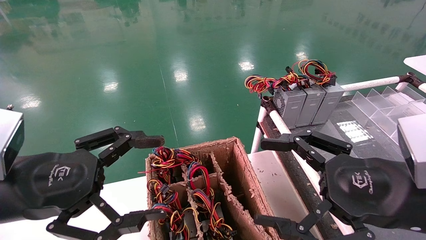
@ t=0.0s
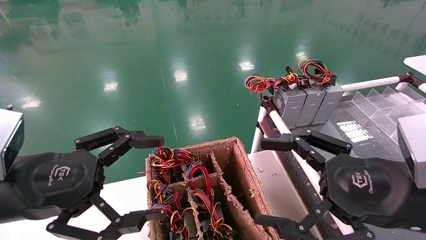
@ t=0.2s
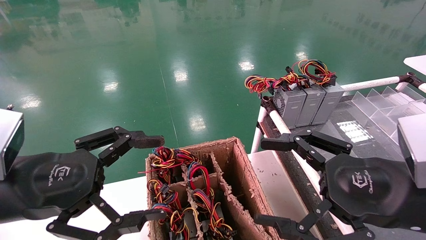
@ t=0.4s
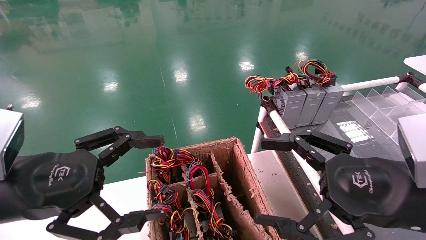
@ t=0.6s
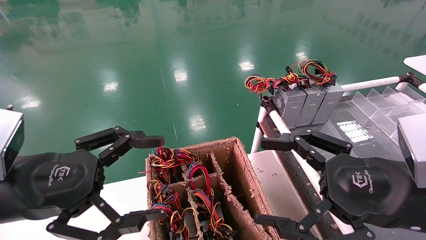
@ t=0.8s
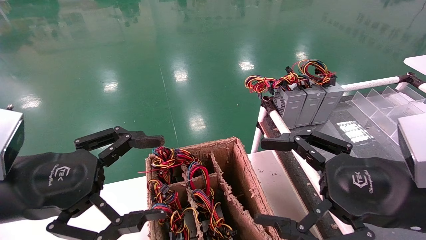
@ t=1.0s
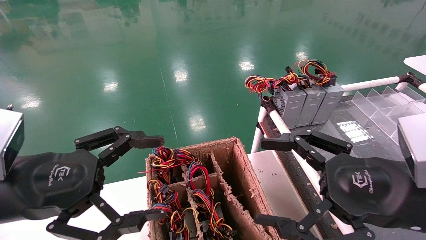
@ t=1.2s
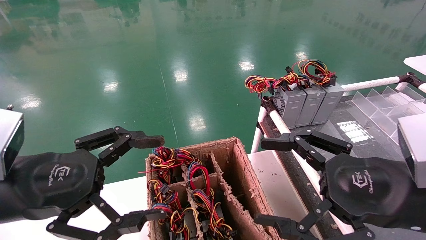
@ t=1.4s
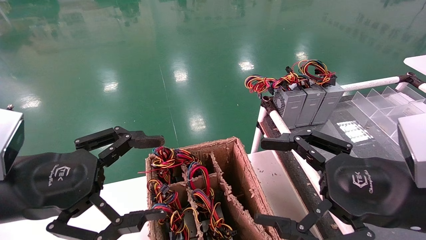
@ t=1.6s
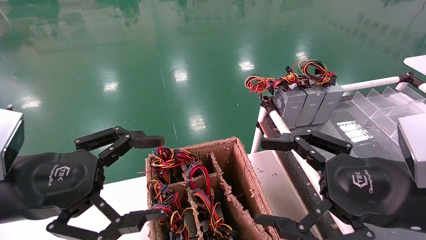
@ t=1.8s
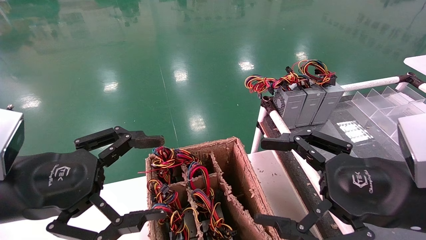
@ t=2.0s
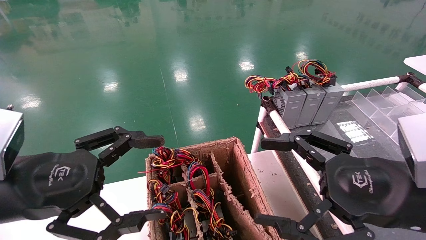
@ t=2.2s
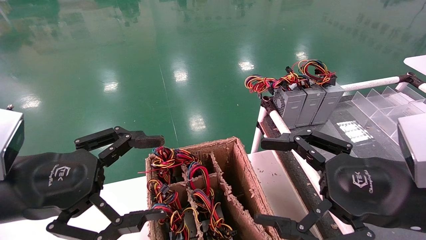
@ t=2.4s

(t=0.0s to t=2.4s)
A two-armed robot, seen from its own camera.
t=0.0s - t=2.4s: Both grippers stay about where they are.
